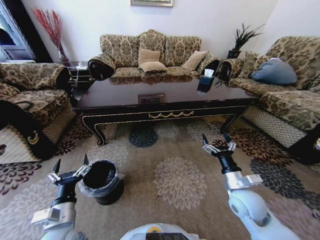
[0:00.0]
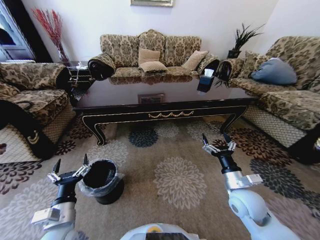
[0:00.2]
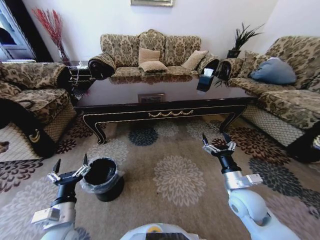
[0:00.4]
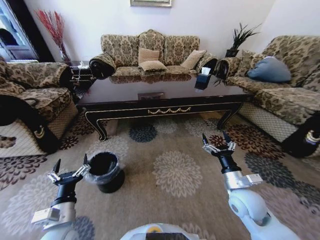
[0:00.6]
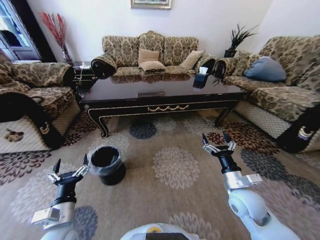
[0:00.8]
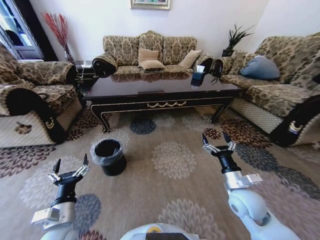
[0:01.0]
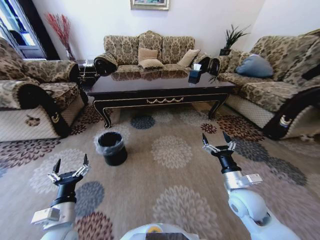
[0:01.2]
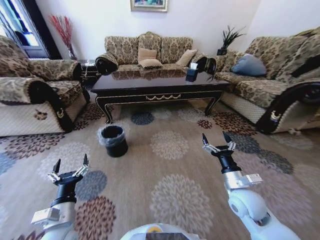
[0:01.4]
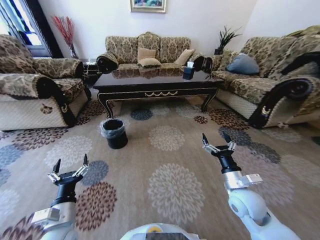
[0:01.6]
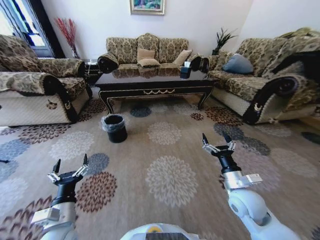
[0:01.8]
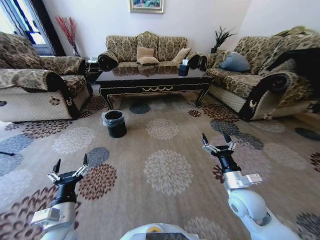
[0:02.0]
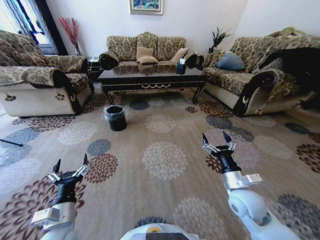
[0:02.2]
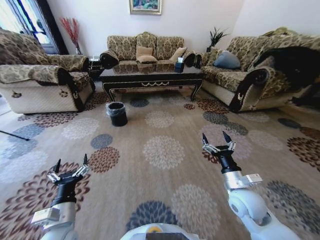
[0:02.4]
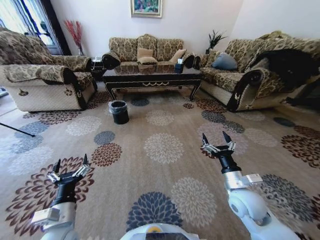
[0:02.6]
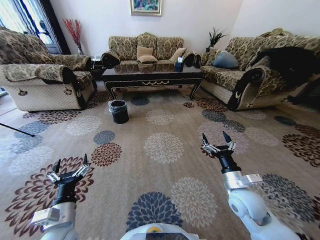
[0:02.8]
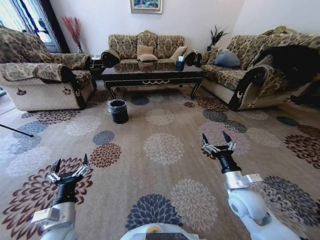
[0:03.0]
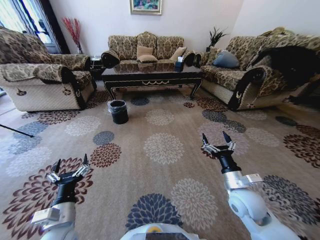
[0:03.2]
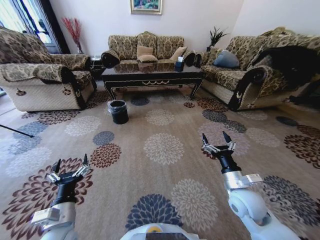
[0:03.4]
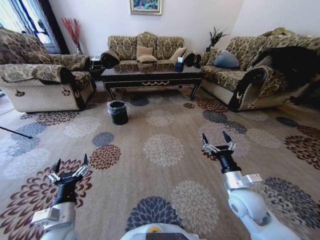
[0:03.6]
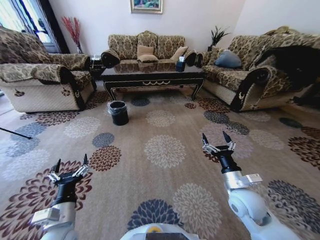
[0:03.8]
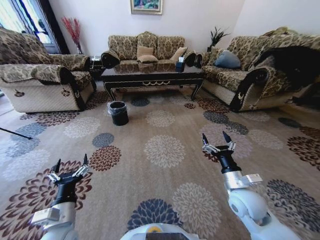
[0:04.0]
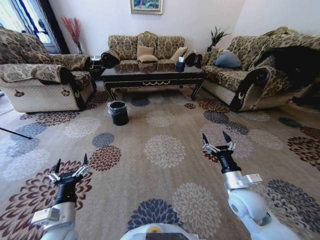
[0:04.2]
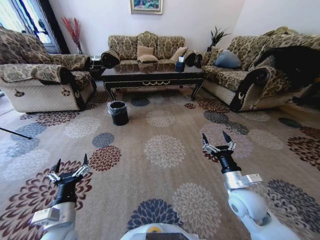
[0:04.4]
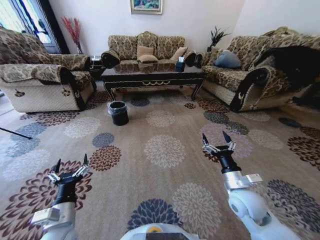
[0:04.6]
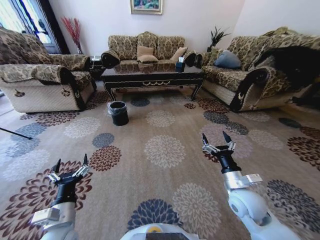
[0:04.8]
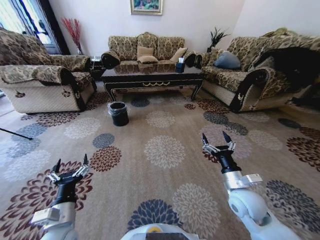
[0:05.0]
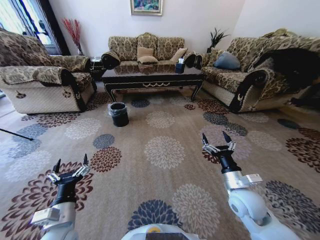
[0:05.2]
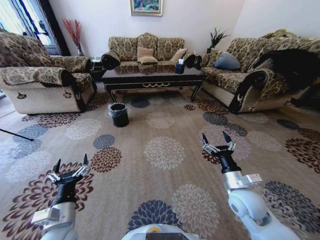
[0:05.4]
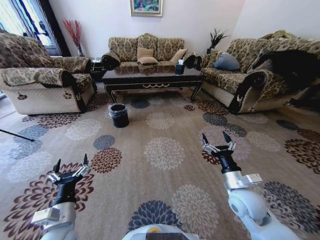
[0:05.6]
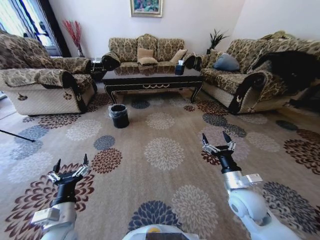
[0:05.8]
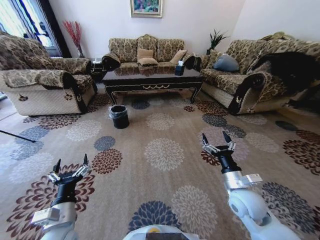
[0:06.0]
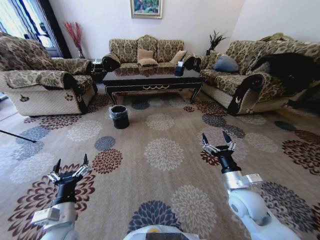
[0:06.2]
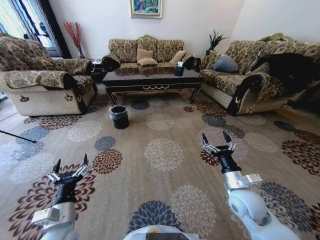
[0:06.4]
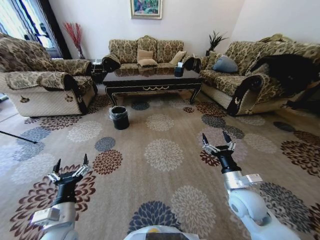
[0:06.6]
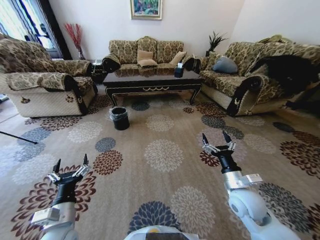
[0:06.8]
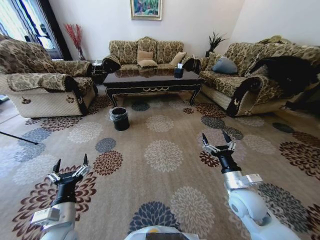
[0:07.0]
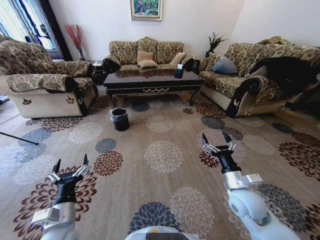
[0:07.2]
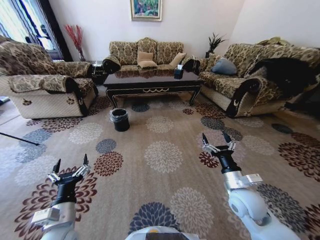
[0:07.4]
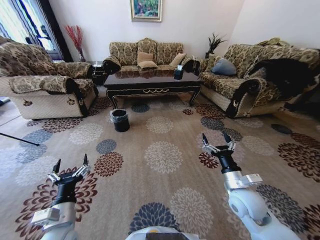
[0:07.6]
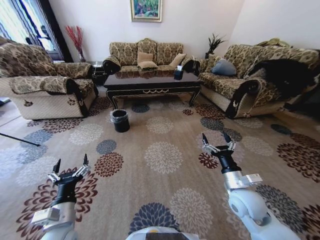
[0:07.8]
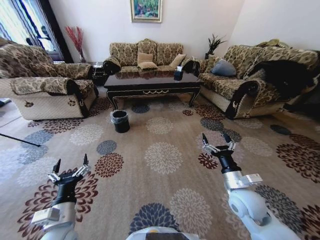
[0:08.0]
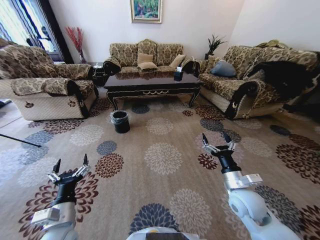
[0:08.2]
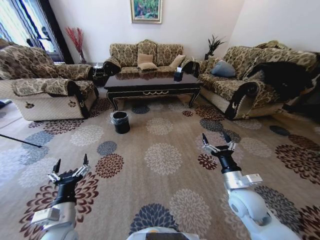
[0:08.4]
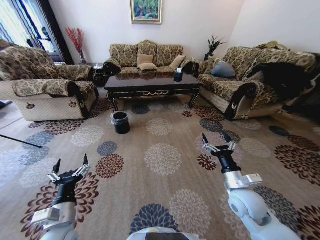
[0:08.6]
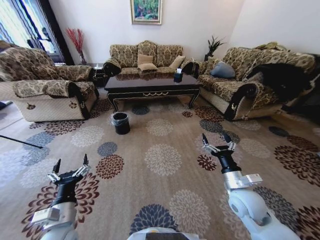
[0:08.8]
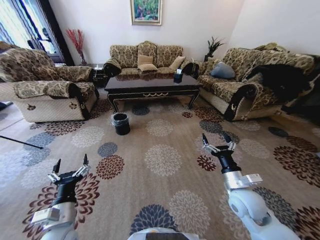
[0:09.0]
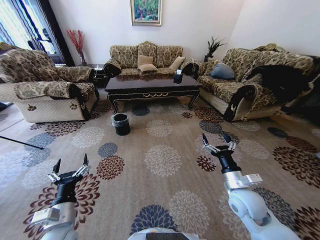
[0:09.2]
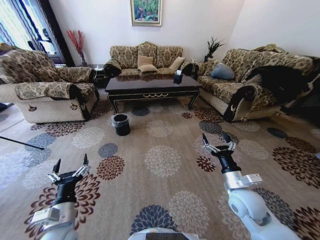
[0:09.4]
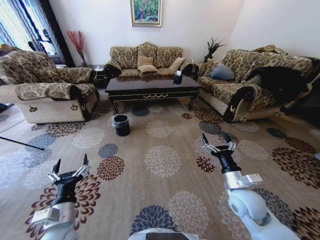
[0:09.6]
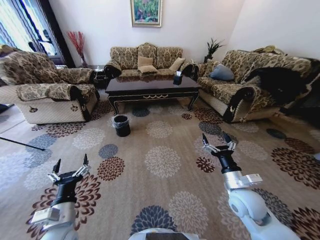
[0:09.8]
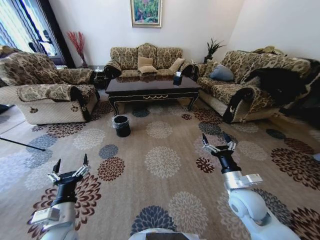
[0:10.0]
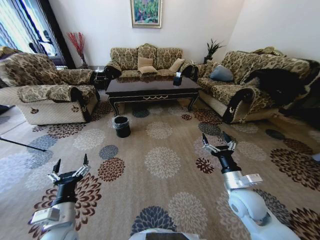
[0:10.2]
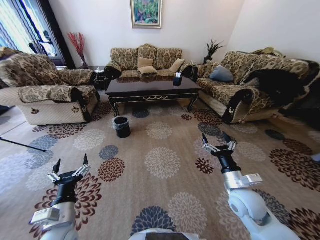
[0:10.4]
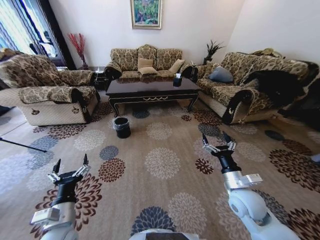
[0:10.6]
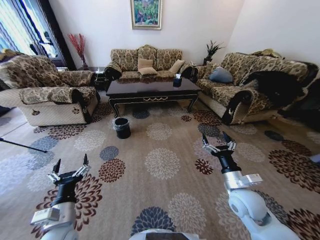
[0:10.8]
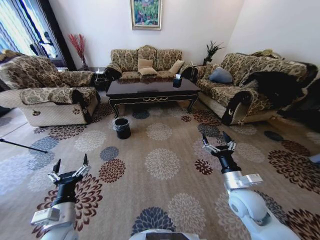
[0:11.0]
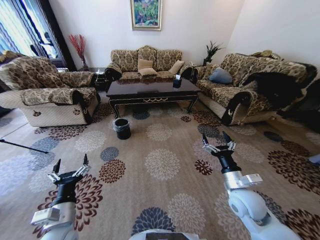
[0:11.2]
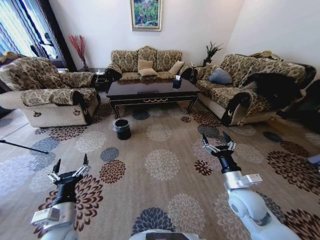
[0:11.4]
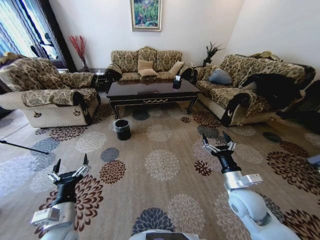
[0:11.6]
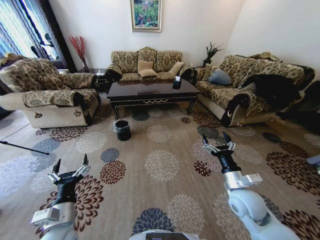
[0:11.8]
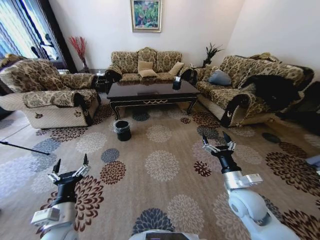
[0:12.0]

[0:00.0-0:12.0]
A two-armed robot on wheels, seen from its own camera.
Task of the whole recording: Move to the front of the table and pick up the trash from the floor, then place it into the trash bin.
0:03.0 to 0:04.4: Both grippers stay put.

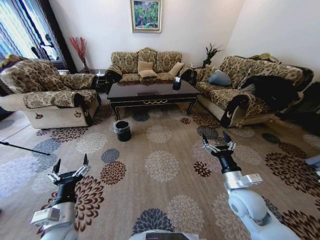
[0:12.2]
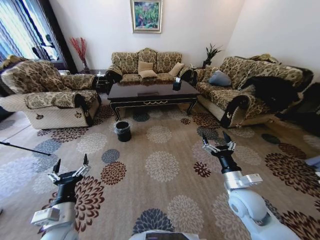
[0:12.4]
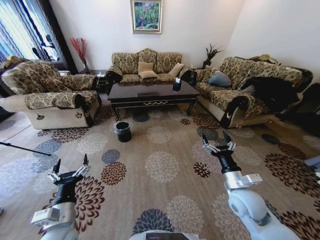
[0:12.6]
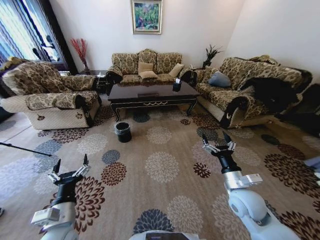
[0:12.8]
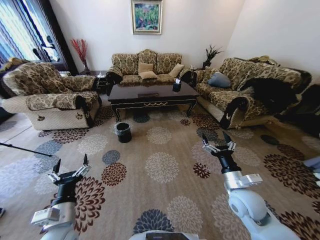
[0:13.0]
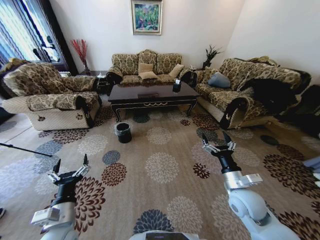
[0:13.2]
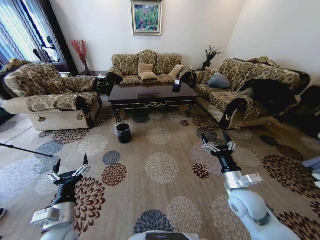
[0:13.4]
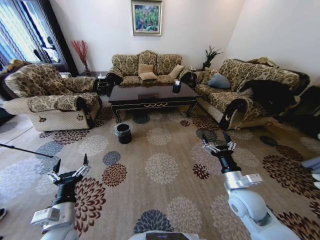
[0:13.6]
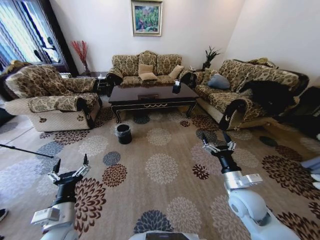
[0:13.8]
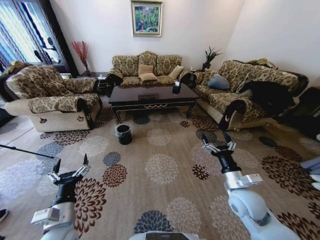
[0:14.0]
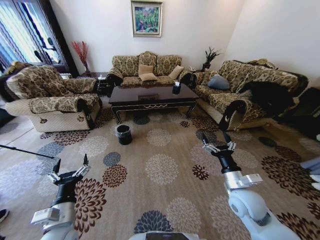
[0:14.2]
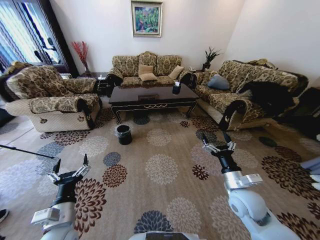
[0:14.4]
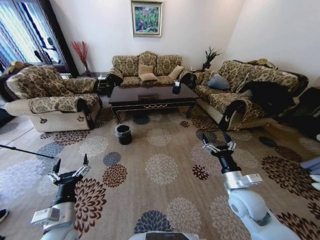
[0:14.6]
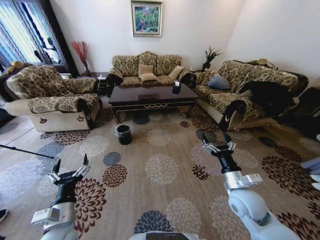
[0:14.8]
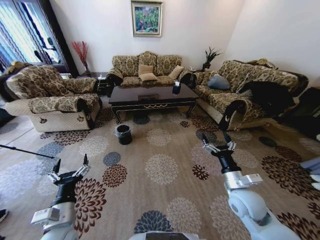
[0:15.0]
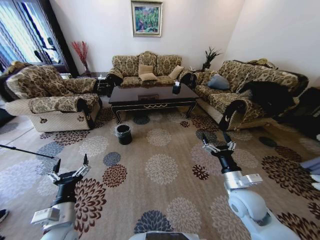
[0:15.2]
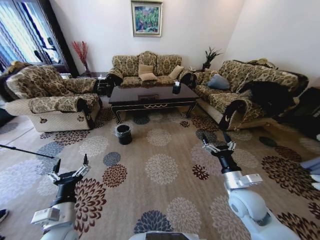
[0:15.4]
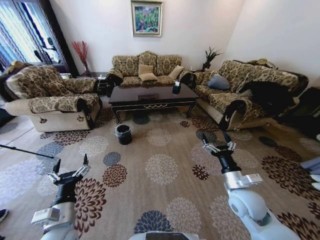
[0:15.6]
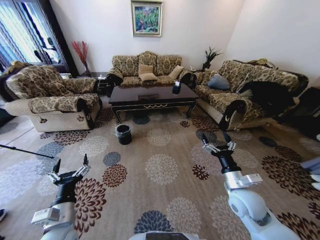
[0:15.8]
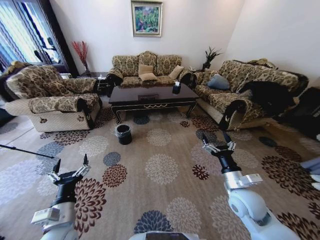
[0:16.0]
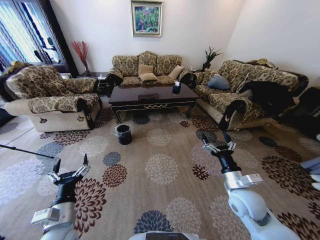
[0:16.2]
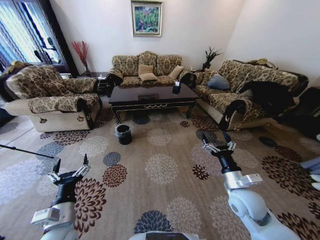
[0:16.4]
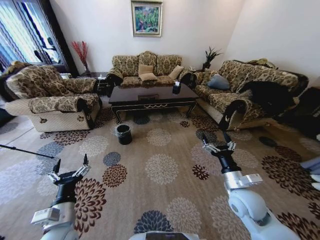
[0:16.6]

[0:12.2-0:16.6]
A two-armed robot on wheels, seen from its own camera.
Task of the whole recording: Move to the front of the table and pick up the trash from the floor, then place it into the trash bin.
0:12.2 to 0:16.6: Neither gripper changes place.

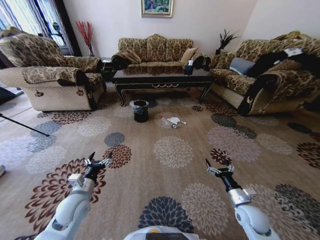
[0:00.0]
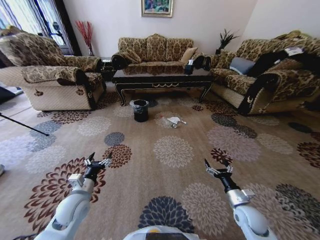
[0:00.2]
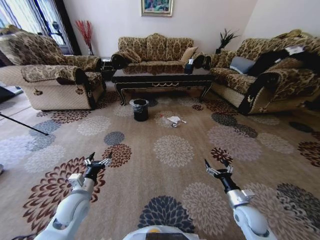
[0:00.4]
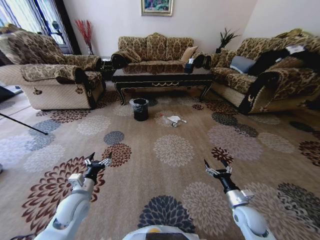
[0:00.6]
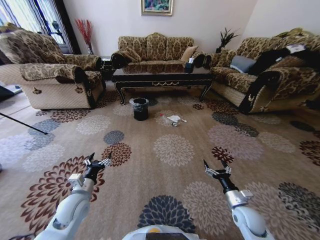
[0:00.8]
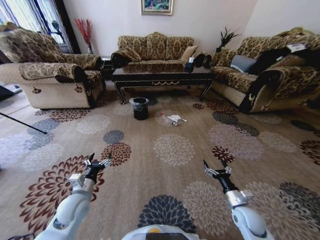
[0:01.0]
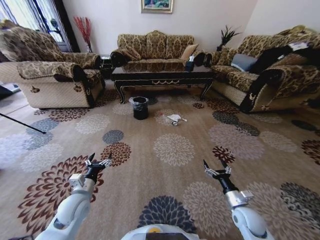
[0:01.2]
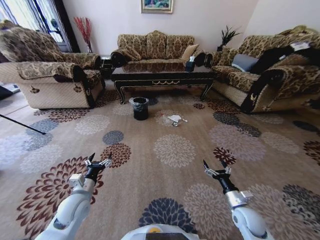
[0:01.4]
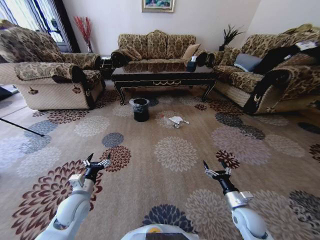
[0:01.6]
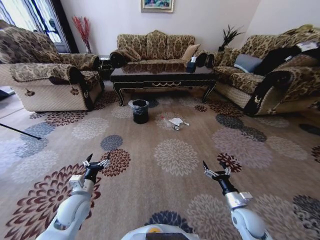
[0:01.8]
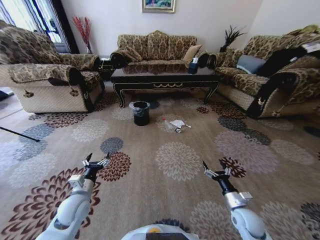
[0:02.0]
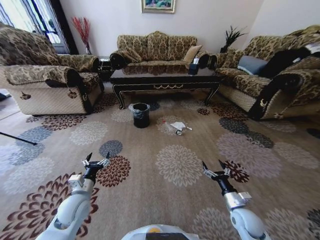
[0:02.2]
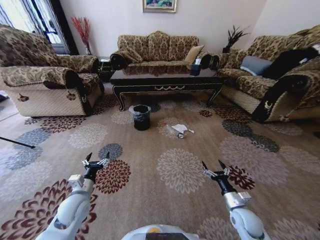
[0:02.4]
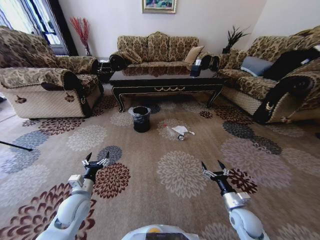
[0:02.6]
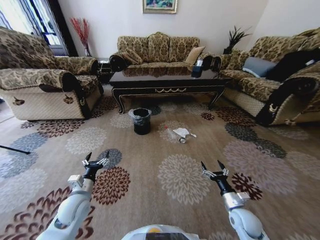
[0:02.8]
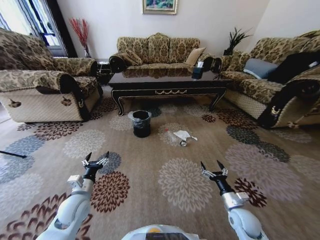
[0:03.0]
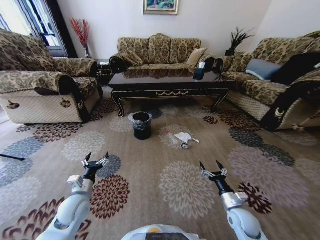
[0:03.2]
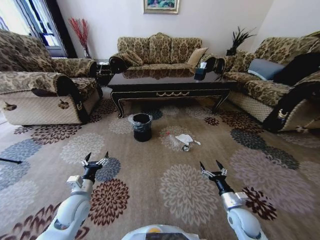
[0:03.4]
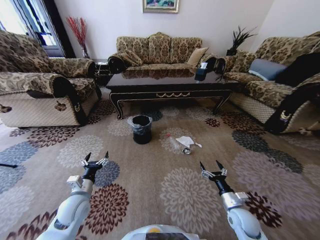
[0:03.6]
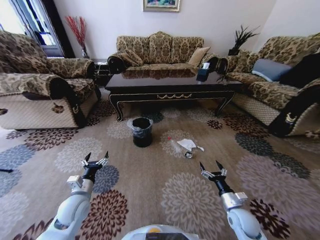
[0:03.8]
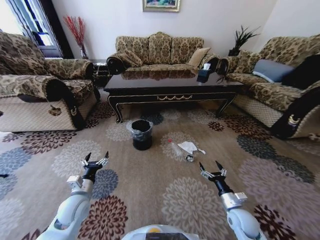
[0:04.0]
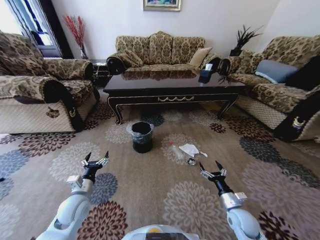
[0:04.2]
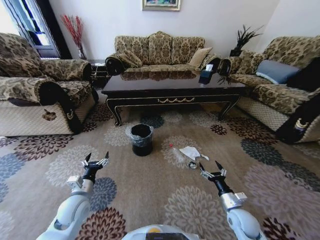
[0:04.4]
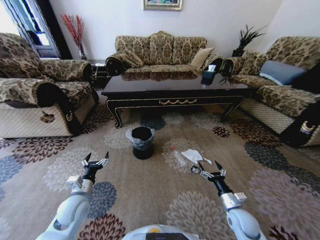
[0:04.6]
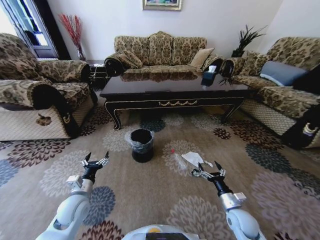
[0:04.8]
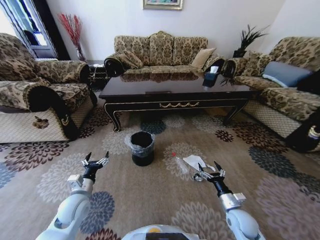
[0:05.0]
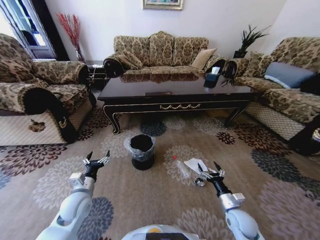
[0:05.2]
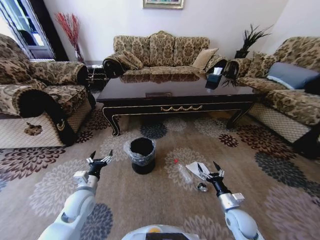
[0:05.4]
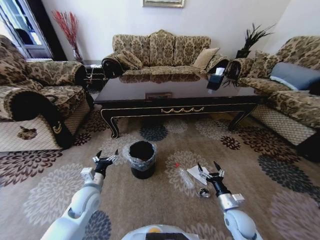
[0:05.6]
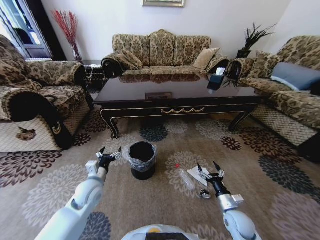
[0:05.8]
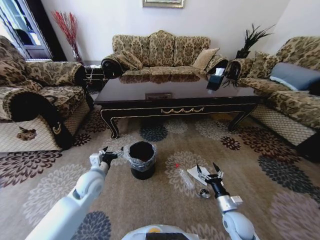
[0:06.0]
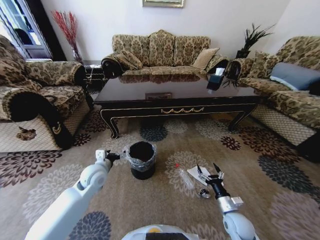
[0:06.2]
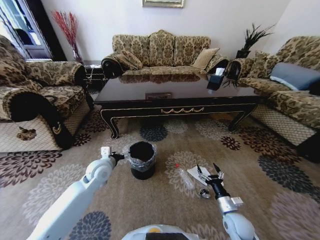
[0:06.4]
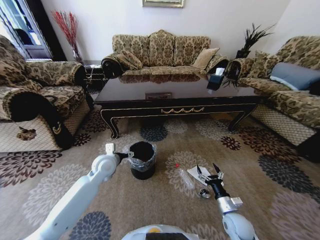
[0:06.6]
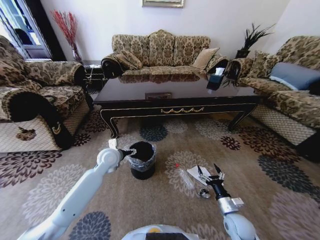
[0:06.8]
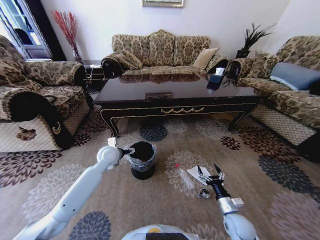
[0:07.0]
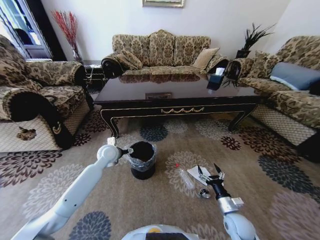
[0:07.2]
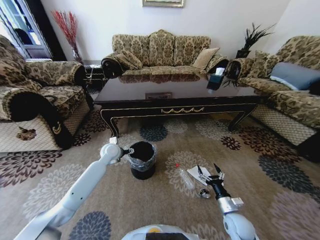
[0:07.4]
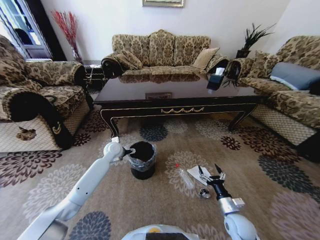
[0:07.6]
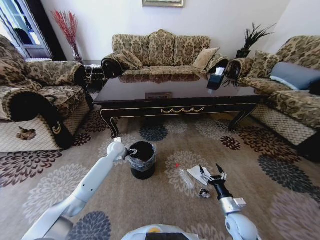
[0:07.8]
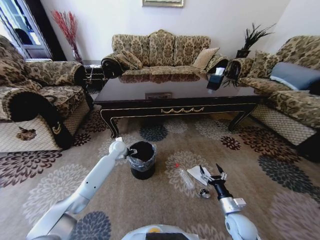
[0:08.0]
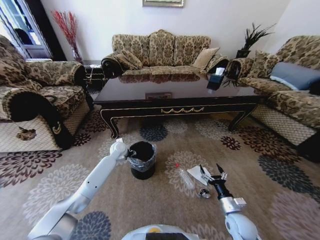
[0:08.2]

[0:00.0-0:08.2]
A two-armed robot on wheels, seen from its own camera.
Task of the whole recording: Move to the front of the table and pick up the trash from the floor, then place it into the trash bin.
0:05.0 to 0:06.6: The left gripper travels forward, to the right and upward by roughly 20 cm.
0:06.6 to 0:08.2: The left gripper moves forward and downward, about 15 cm.
